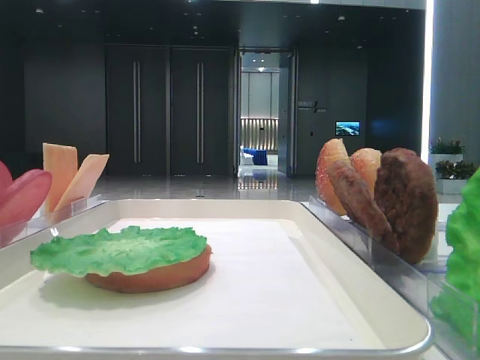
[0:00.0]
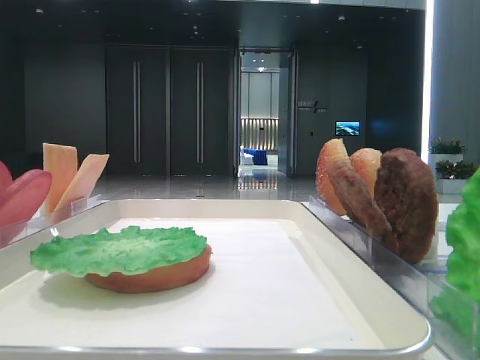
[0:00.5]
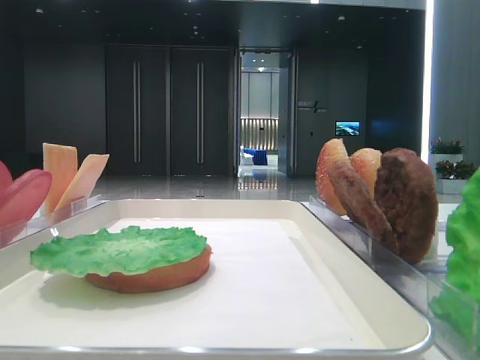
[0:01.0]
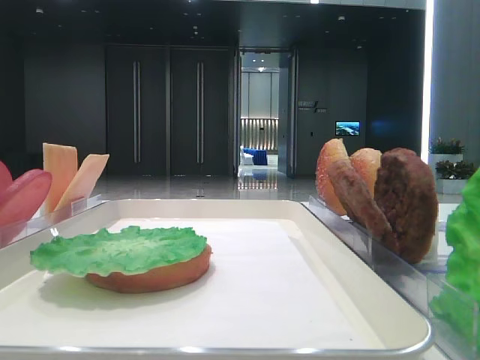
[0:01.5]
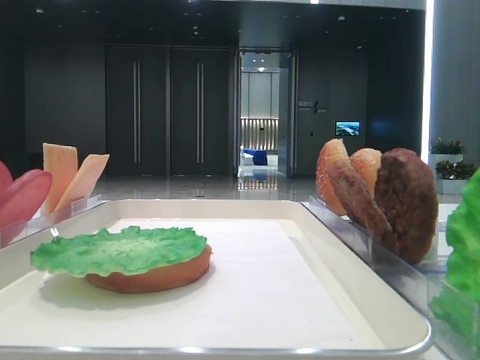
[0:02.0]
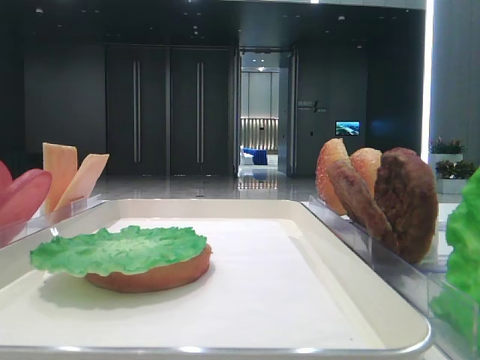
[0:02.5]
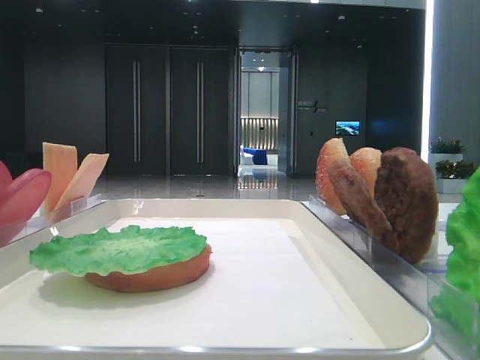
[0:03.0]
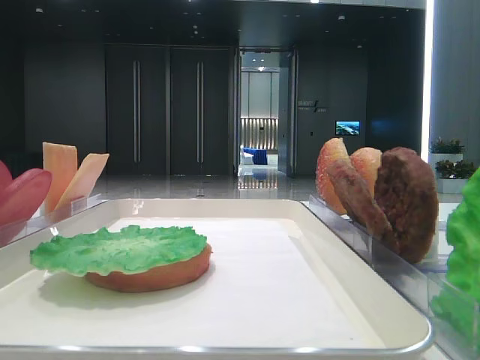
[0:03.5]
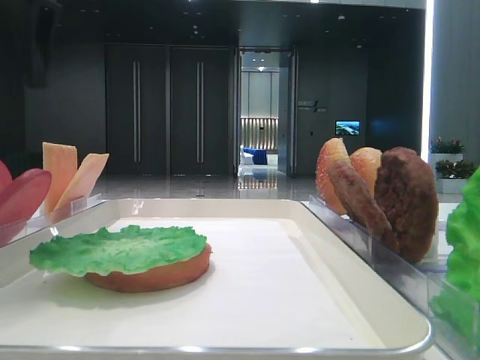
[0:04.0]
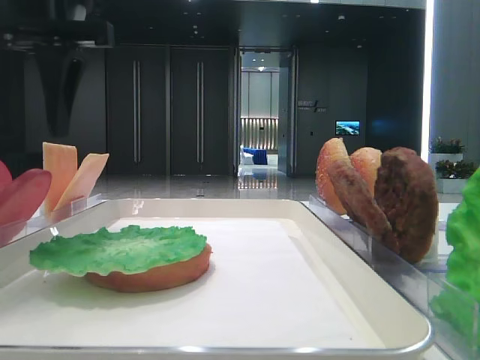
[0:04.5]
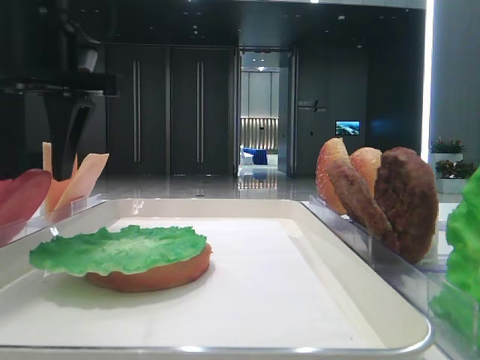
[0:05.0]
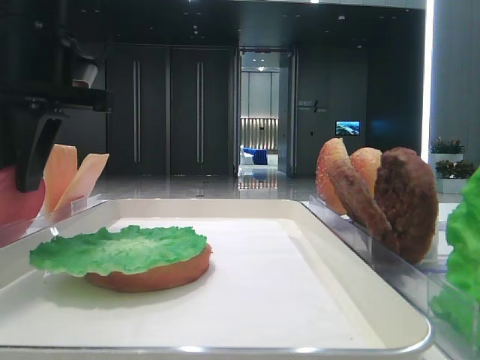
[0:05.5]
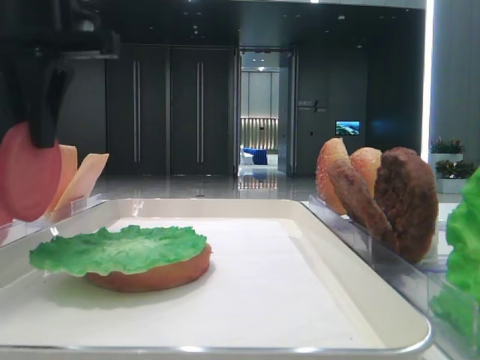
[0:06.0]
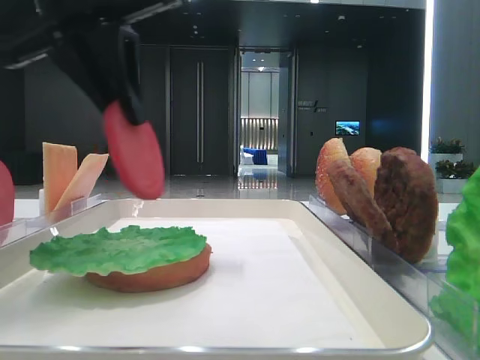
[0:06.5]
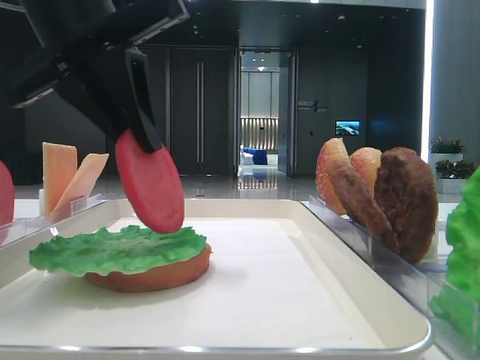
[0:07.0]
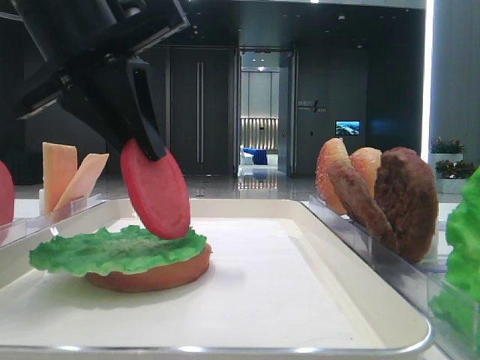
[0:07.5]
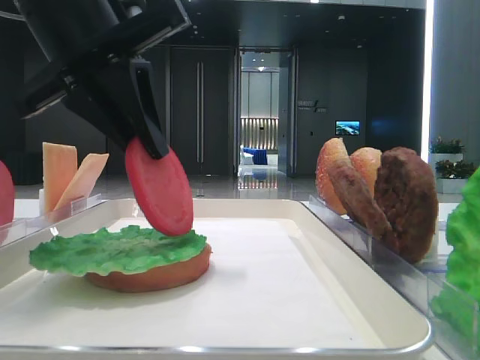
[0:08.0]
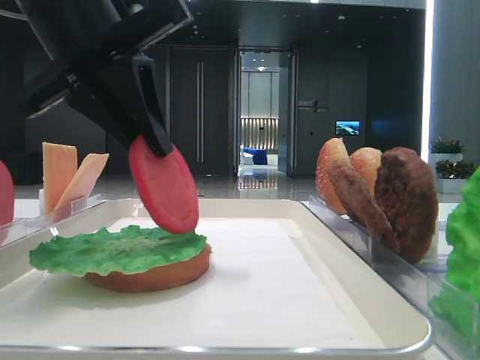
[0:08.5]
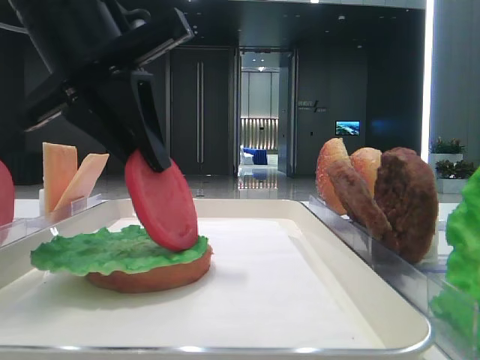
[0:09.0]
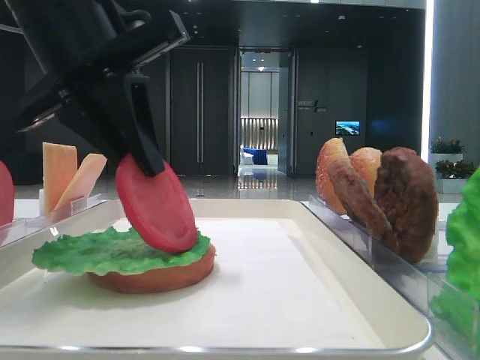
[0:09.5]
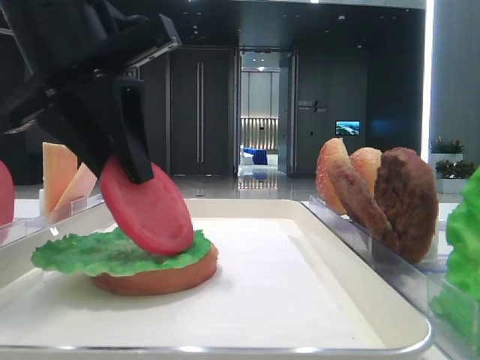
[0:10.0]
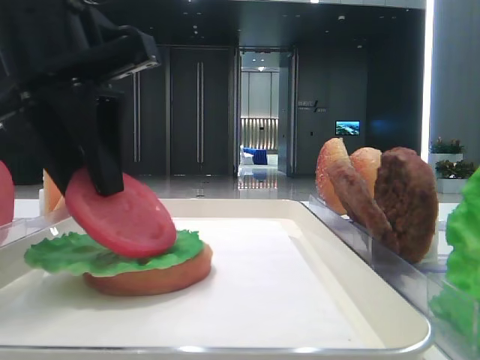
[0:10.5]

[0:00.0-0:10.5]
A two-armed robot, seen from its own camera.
Step, 0:00.0 to 0:05.0: Pick up the tomato slice with the left hand.
0:02.0 to 0:04.0: The left gripper goes approximately 35 cm forward and to the right.
0:04.0 to 0:06.5: The left gripper travels to the right by approximately 5 cm, and closes up.
0:06.5 to 0:08.5: The grippers make only small movements.
0:08.5 to 0:10.5: The left gripper opens its fingers.

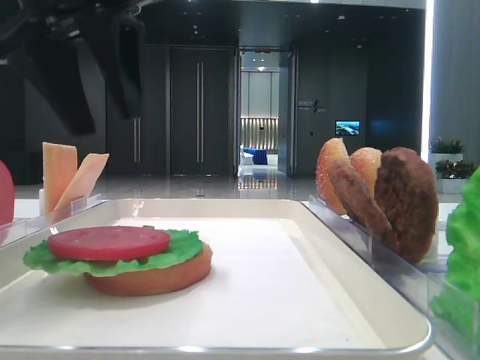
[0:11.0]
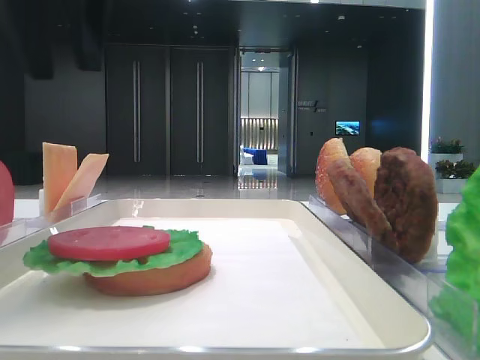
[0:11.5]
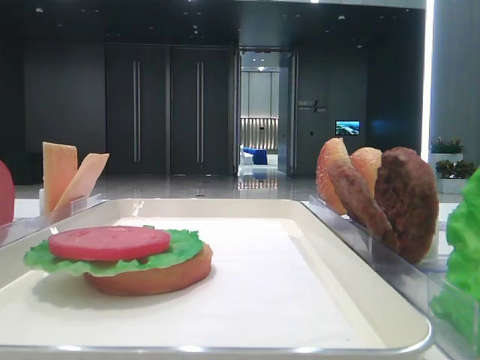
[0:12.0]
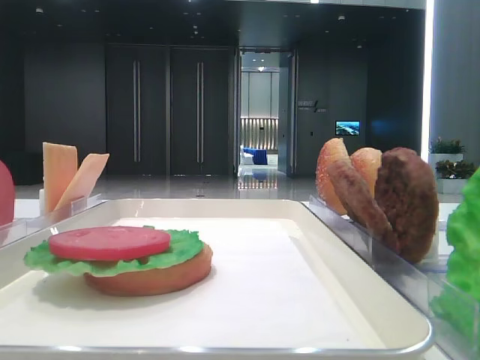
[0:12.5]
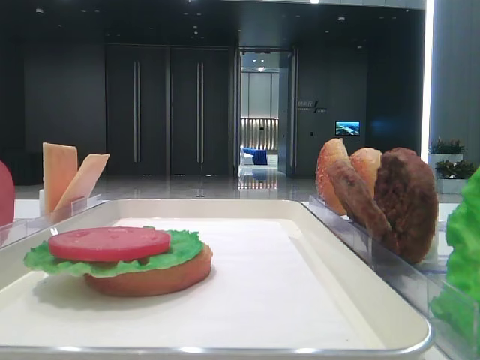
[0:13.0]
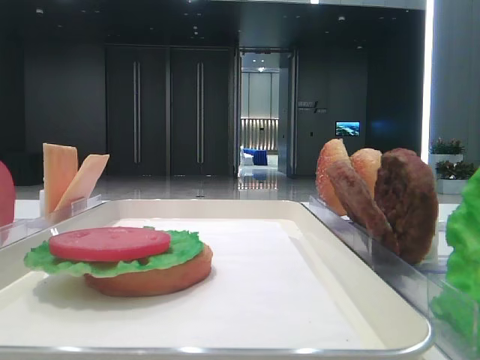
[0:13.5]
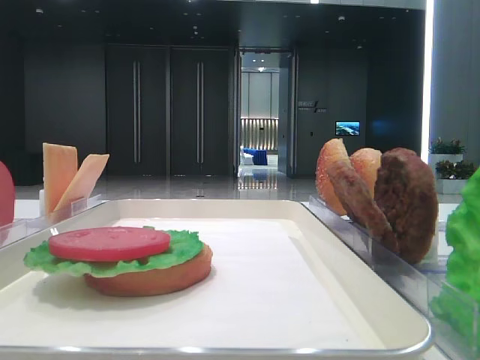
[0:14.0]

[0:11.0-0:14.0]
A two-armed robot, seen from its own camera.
0:11.0 to 0:12.5: The left gripper shifts roughly 20 cm to the left and backward.

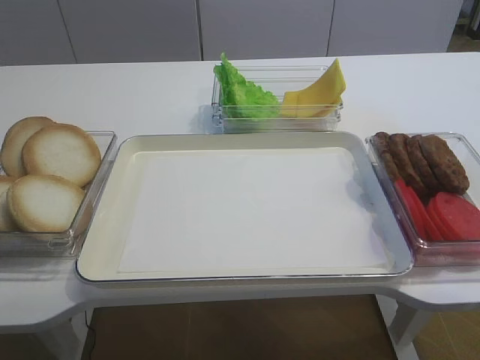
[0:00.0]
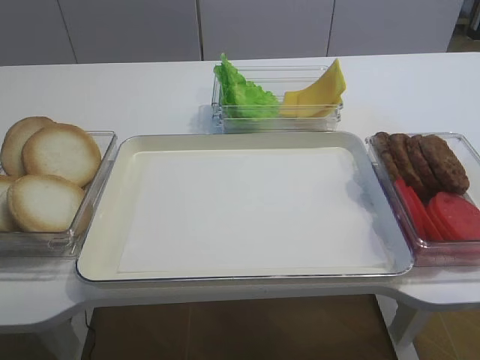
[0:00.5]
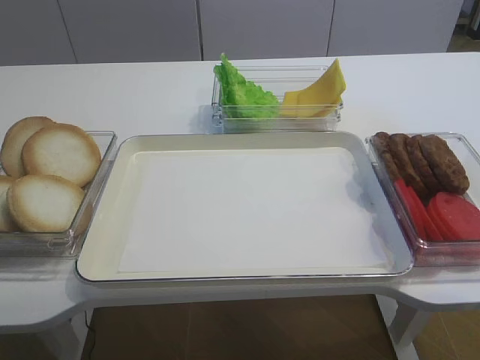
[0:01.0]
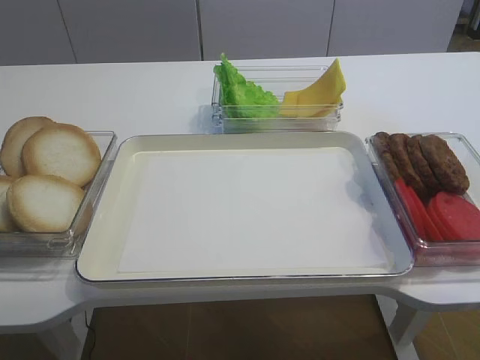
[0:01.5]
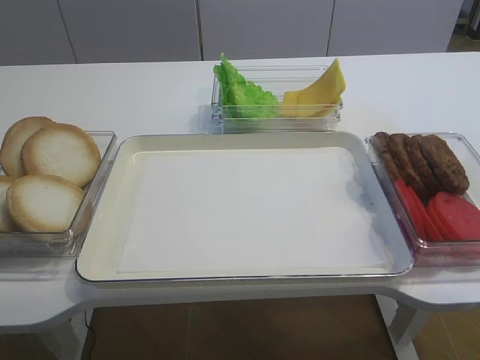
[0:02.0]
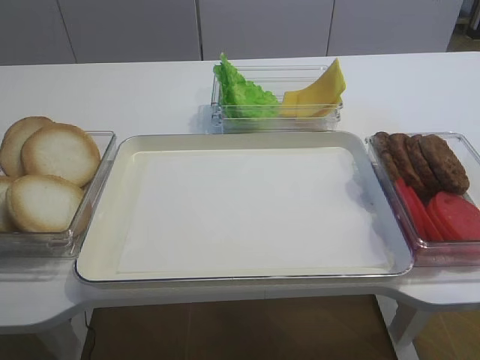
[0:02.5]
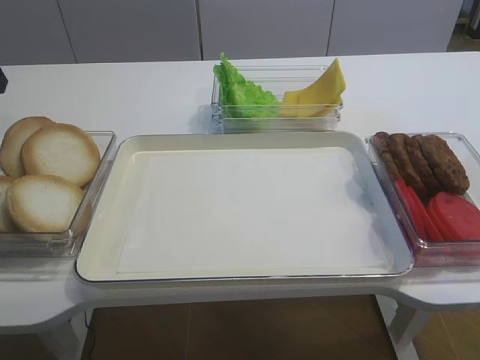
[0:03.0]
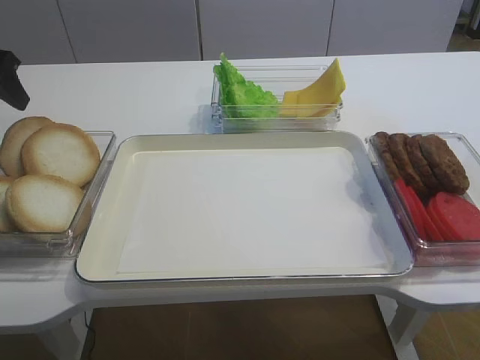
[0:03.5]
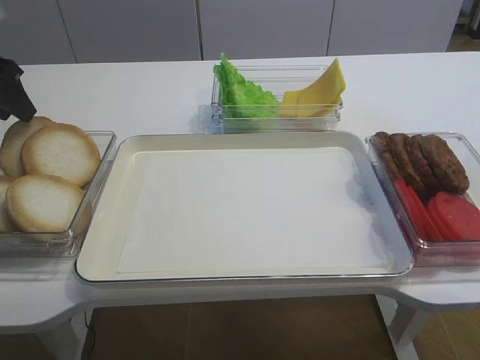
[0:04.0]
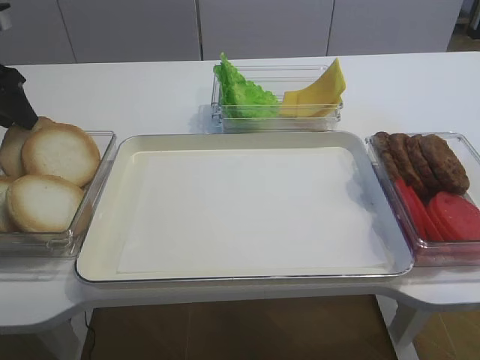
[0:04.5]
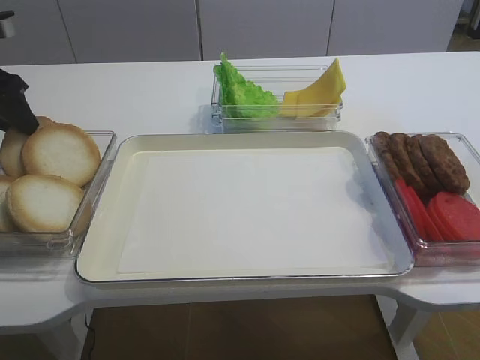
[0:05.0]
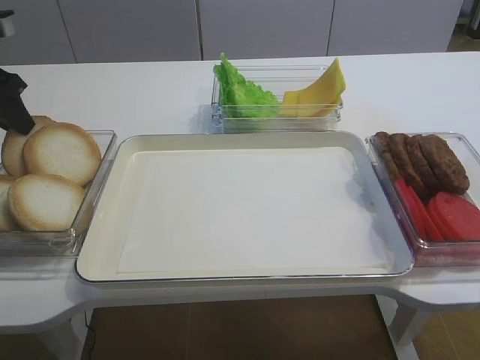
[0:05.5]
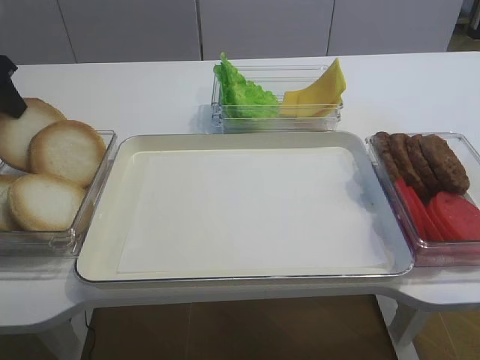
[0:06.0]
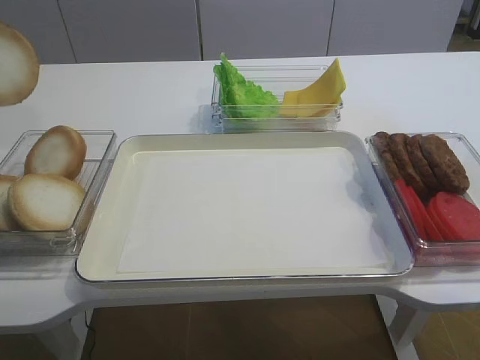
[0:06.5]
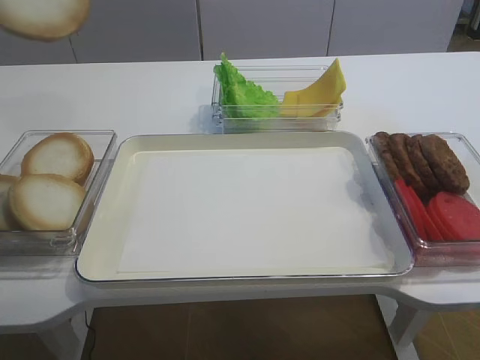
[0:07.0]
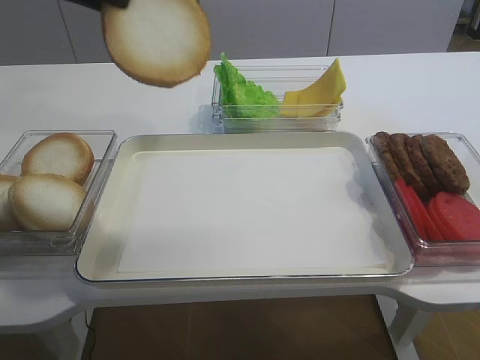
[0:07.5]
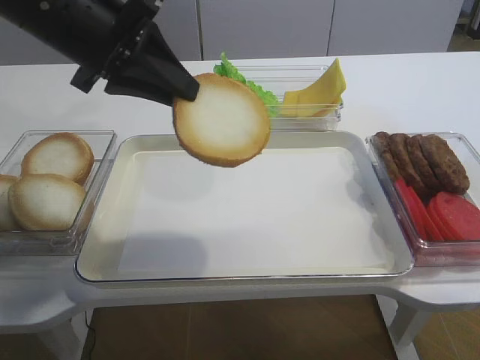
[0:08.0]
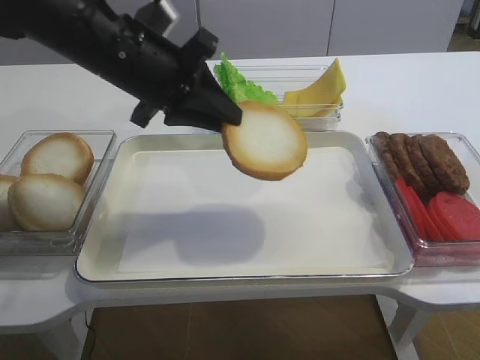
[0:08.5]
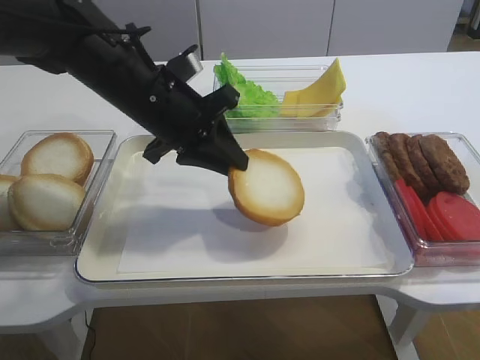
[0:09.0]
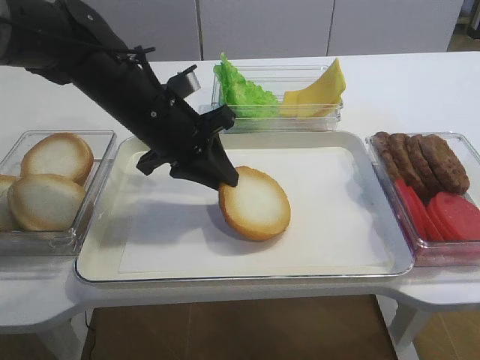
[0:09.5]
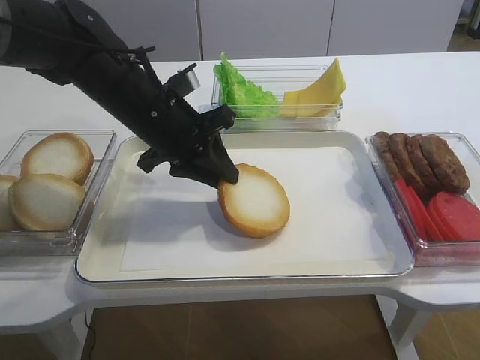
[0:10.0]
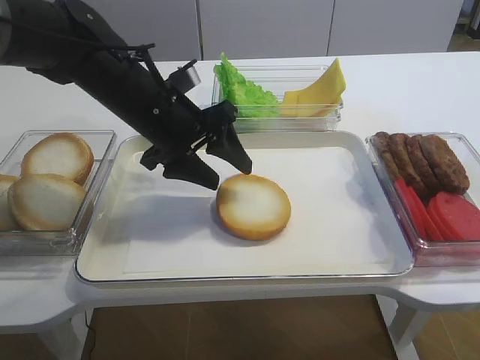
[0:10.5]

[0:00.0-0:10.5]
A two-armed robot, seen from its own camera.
Step, 0:06.0 to 0:10.5: Place the bread slice on the tray with the left gripper.
0:02.0 to 0:04.0: The left gripper goes approximately 30 cm forward.
0:04.0 to 0:06.5: The left gripper goes some 10 cm upward, and closes.
0:06.5 to 0:08.5: The left gripper shifts approximately 20 cm to the right and downward.
0:08.5 to 0:10.5: The left gripper moves downward, about 5 cm, and opens its fingers.

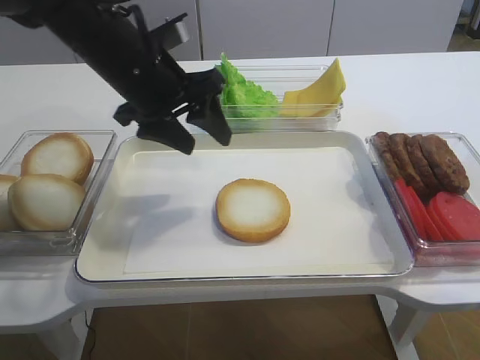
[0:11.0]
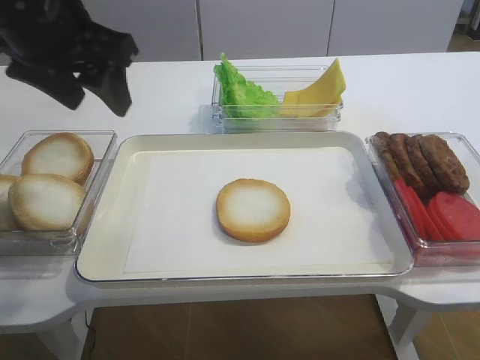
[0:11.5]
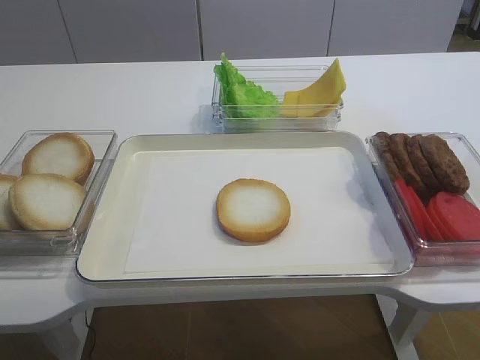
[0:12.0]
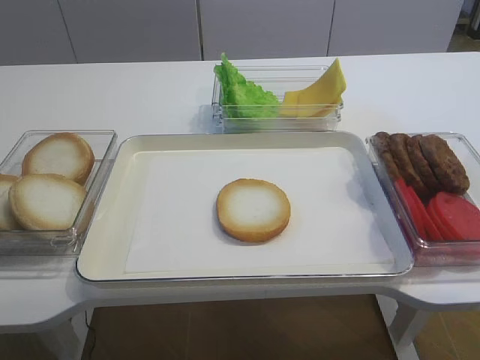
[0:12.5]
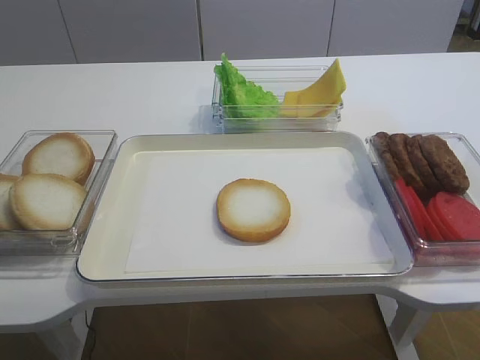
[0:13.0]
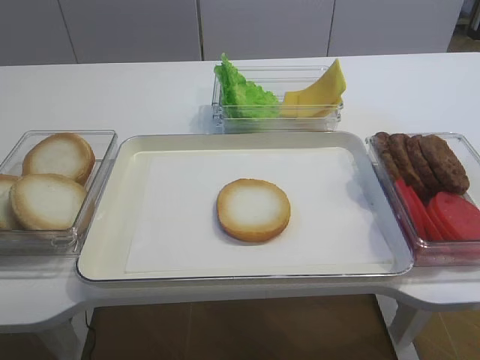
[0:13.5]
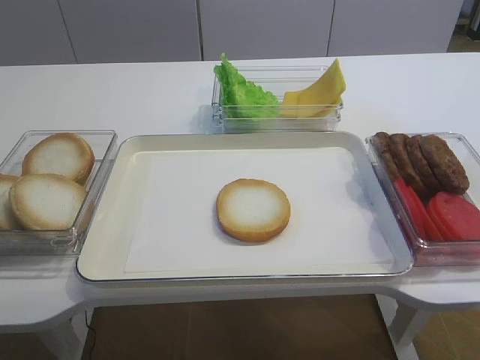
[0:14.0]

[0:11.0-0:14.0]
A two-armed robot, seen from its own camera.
0:11.0 to 0:12.5: The left gripper shifts about 35 cm backward, to the left and upward; the right gripper closes.
